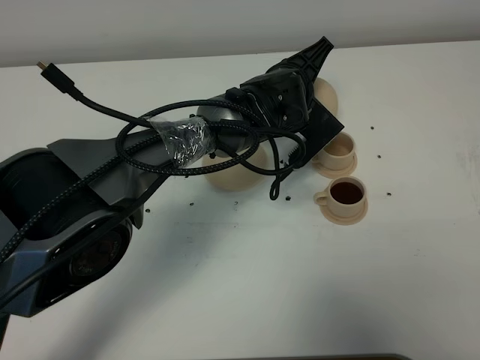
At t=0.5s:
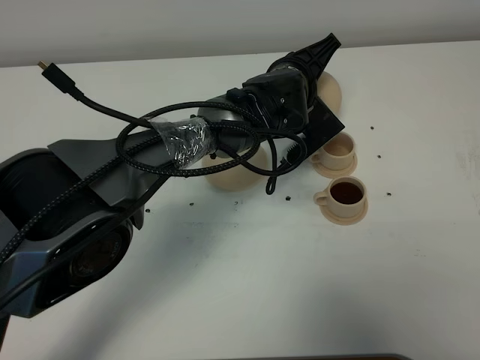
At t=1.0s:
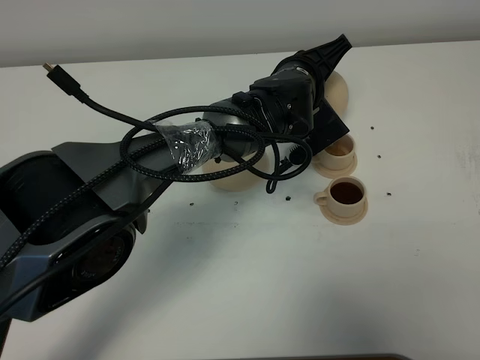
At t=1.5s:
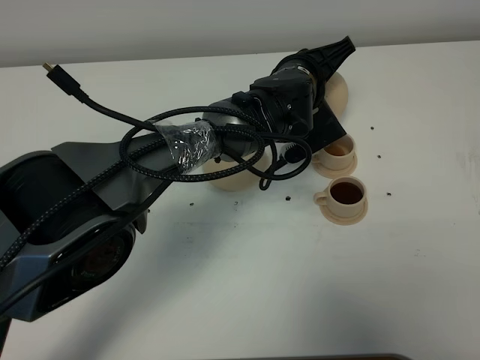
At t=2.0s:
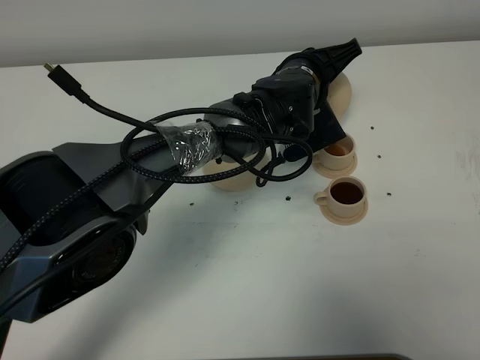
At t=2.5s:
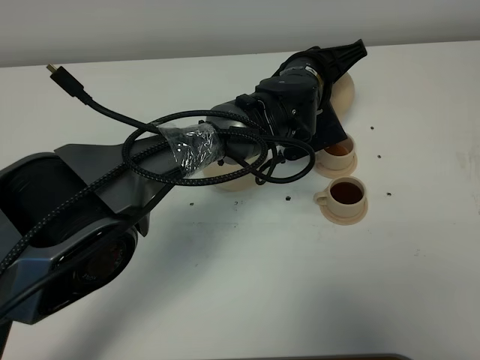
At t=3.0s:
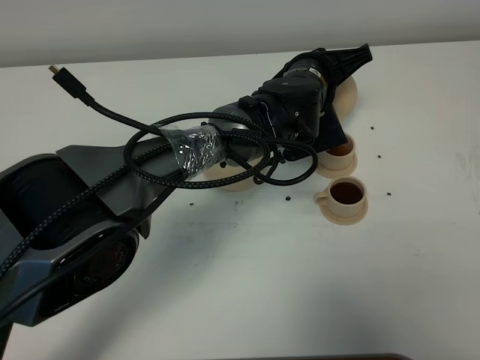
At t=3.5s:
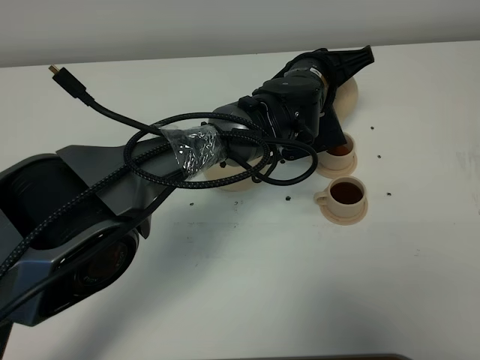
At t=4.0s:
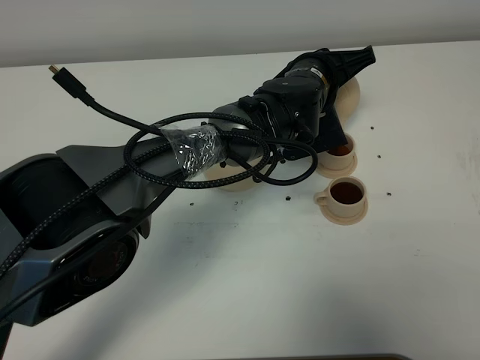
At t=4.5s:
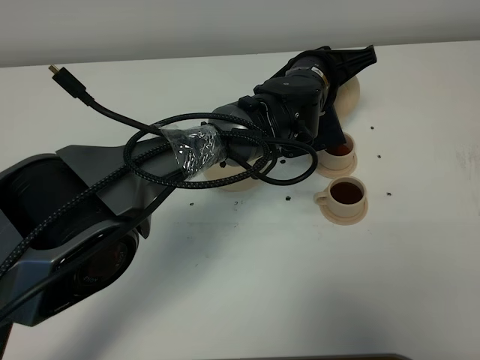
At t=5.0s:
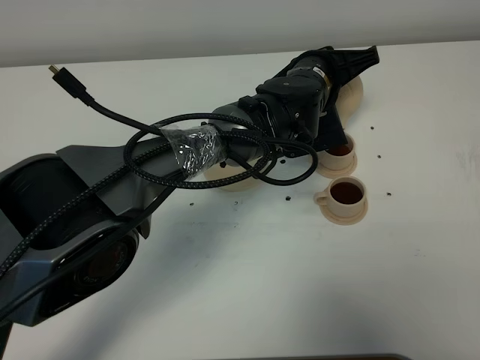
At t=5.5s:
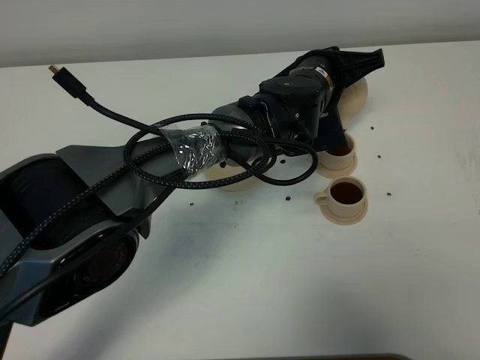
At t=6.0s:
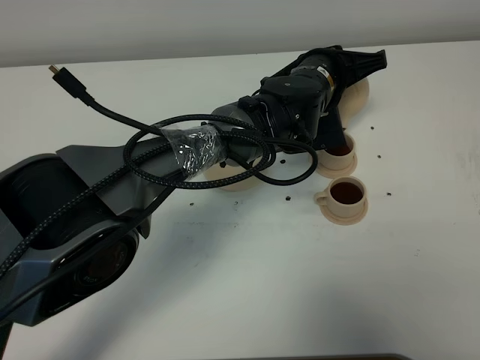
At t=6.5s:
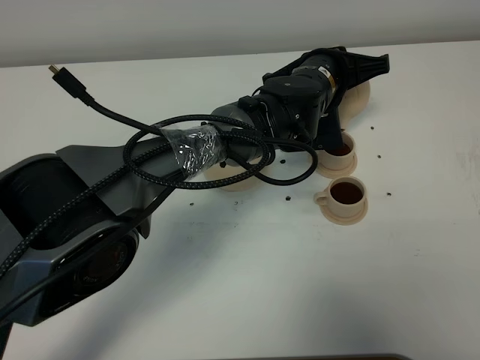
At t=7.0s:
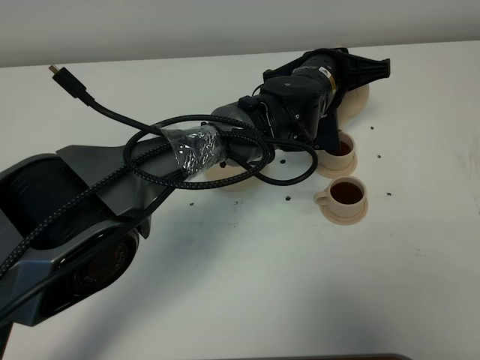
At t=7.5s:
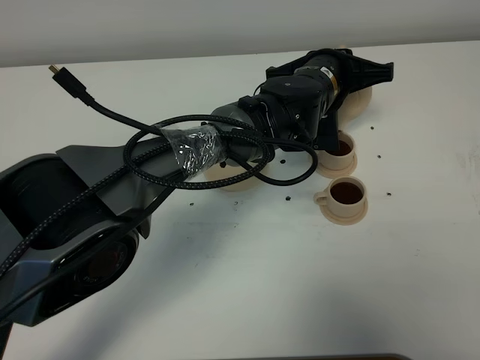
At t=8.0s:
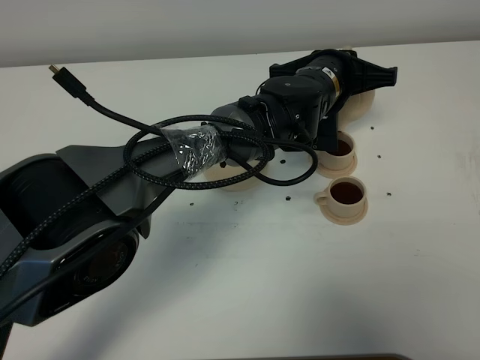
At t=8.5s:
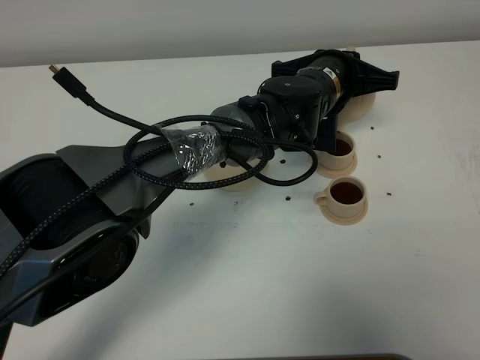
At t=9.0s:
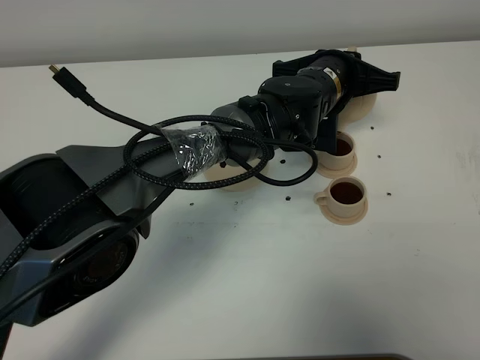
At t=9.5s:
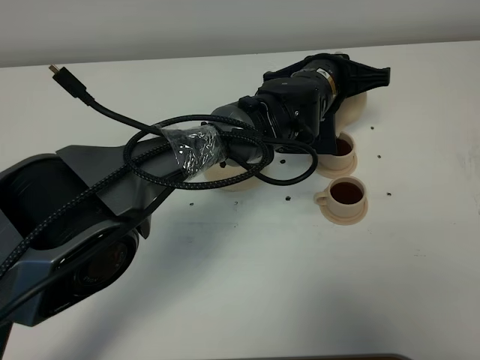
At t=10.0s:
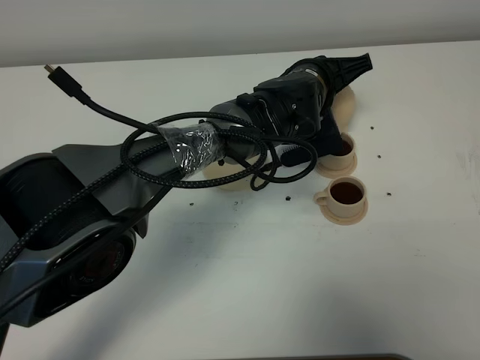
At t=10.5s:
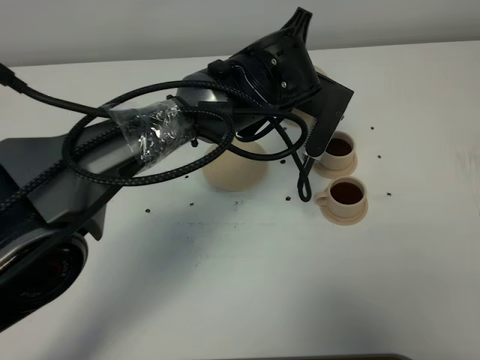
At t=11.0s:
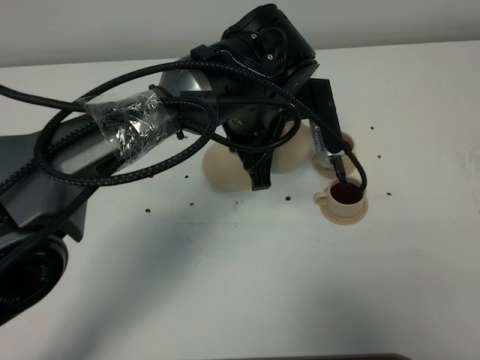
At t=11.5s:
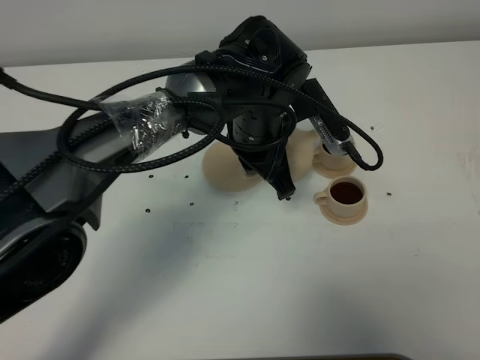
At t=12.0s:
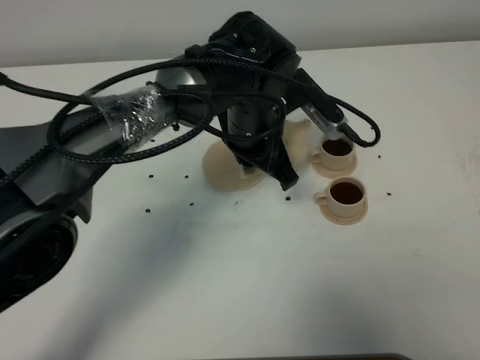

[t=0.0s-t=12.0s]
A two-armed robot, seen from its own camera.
Task of the whole recording: grasp the brown teapot and pour the tea into the two brown teacups one by one, put the brown teapot back in its original place.
Step, t=0.0s to t=9.0s: Pour tea into the teacup with the left gripper.
t=0.0s to t=2.0s: The grippers stay close to where they were, moving slightly.
t=2.0s to t=6.0s: There are only small adjustments of the grippers.
t=6.0s to t=8.0s: The grippers make only small movements.
t=10.0s to t=12.0s: The left gripper heads to the left, covering some 5 cm.

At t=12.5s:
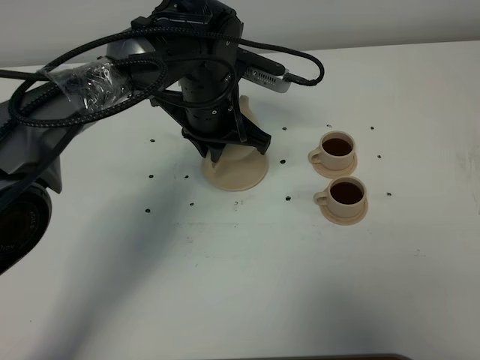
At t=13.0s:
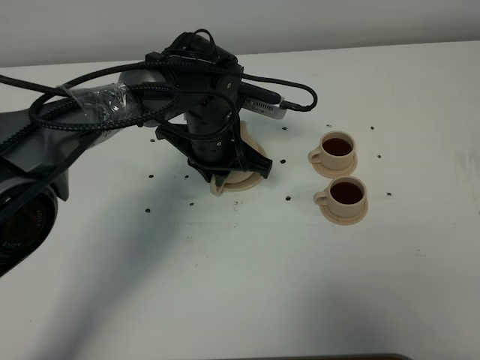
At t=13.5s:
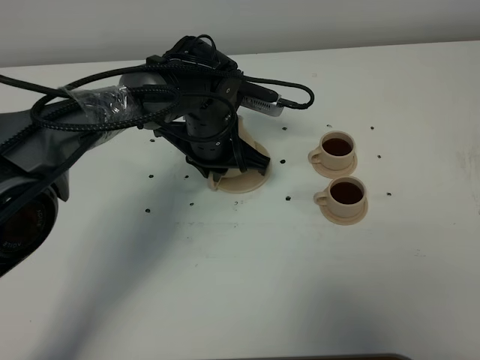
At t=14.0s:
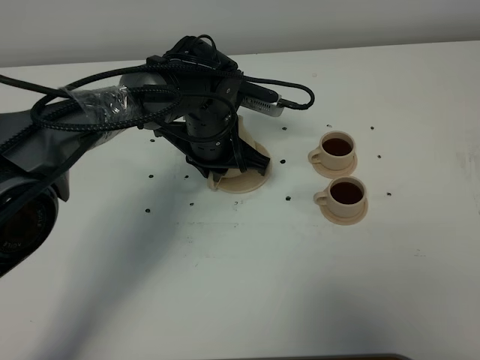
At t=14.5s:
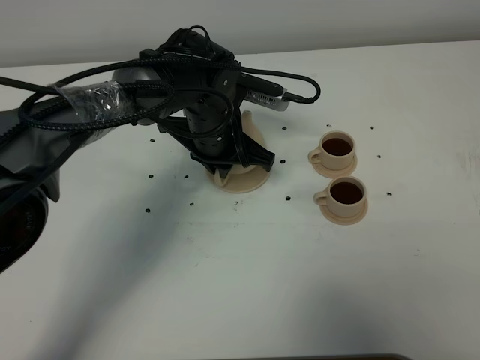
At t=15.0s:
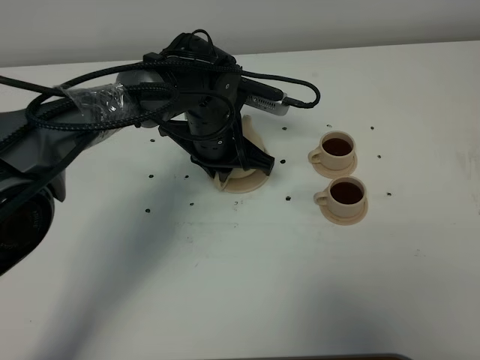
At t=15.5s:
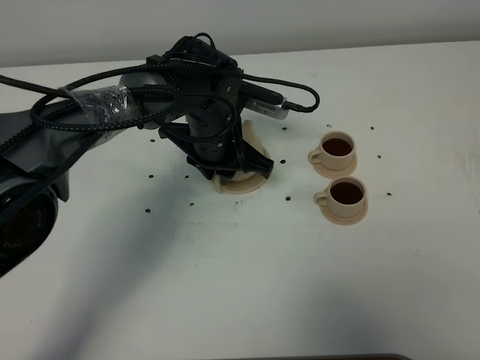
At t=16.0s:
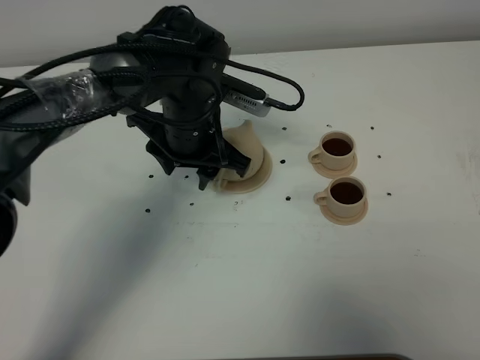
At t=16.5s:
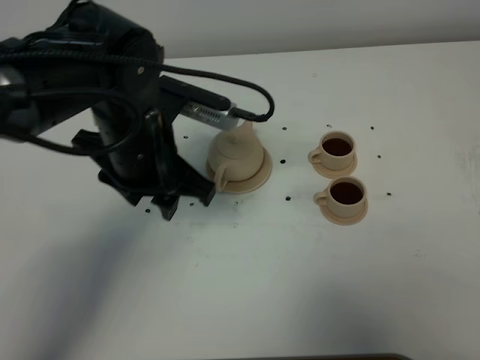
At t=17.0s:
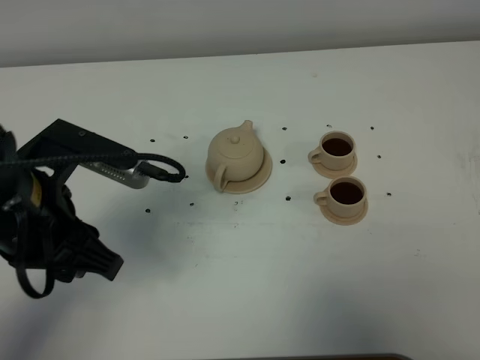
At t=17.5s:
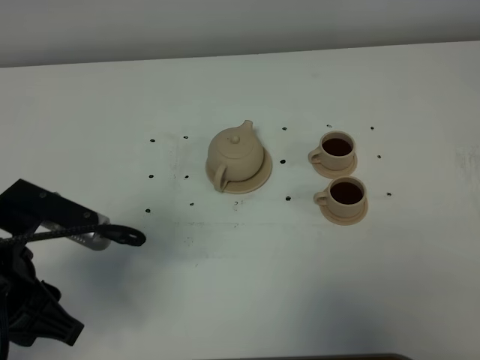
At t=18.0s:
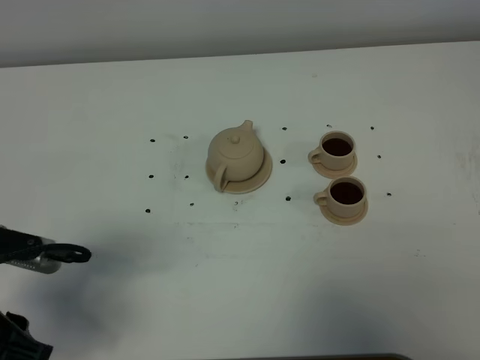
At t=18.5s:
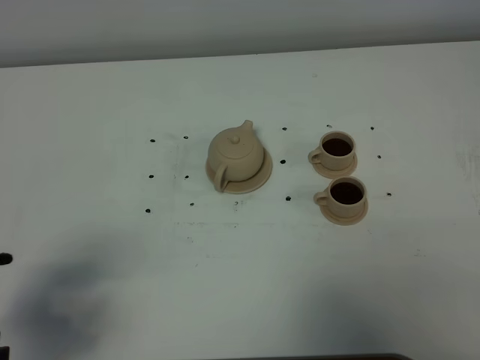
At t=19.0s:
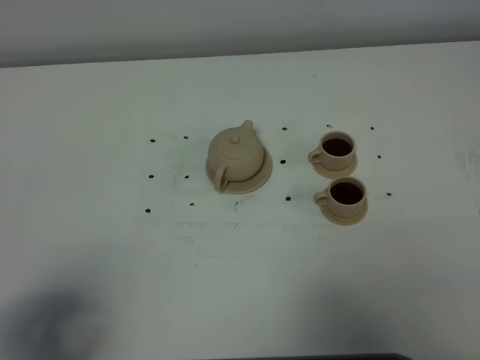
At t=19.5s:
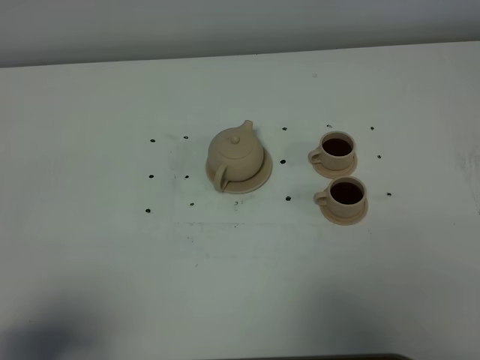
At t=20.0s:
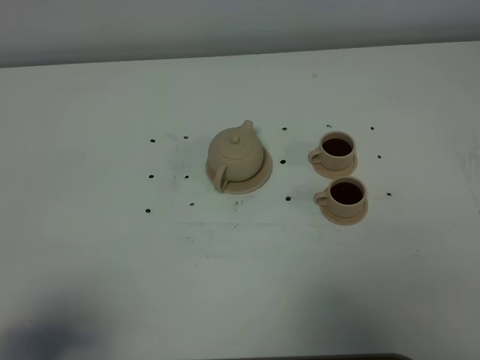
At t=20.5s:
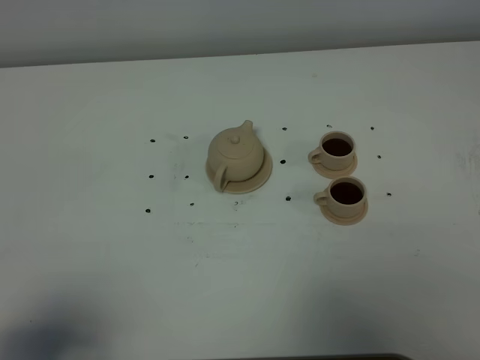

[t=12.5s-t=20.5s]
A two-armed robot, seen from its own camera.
Task of the whole recording: grasp the brown teapot and pour the tea into the two brown teacups one by one, put the brown teapot back in its original place.
t=12.5s to t=14.5s: The grippers move only a little.
t=14.5s to t=16.5s: The left gripper heads backward, upward and to the left, covering roughly 15 cm, and opens.
t=16.5s to t=18.5s: The left gripper goes roughly 25 cm backward and to the left.
t=18.5s to t=20.5s: The left gripper heads backward, covering approximately 10 cm.

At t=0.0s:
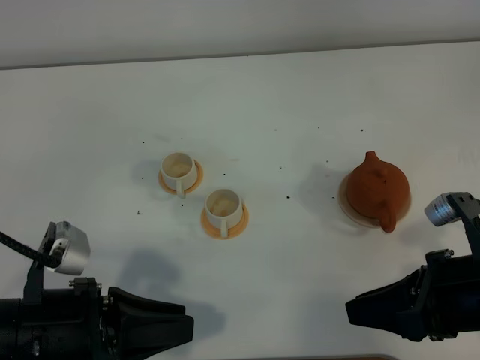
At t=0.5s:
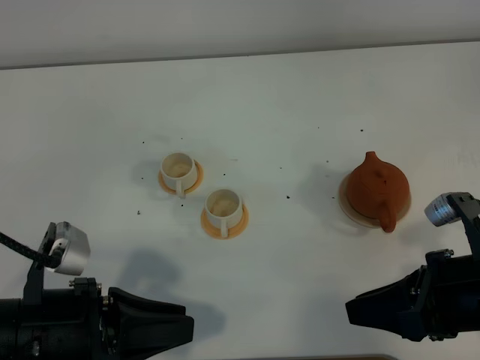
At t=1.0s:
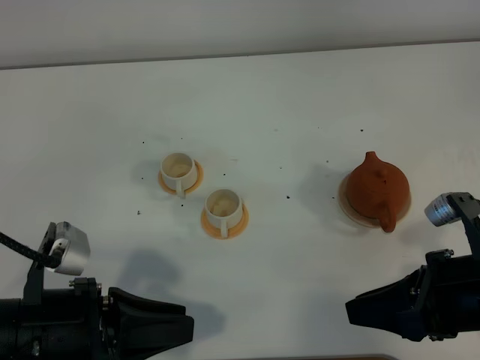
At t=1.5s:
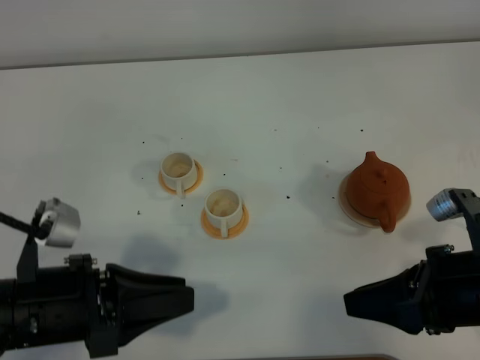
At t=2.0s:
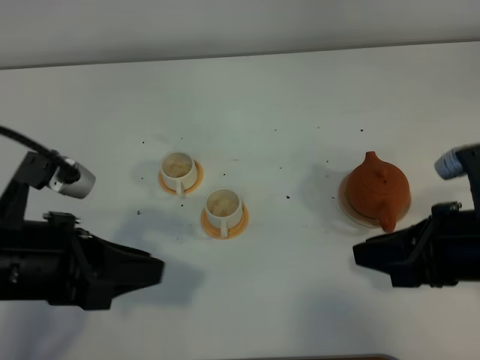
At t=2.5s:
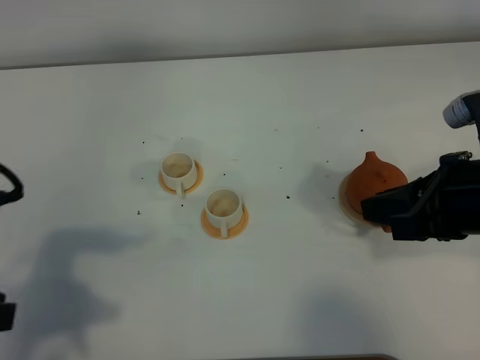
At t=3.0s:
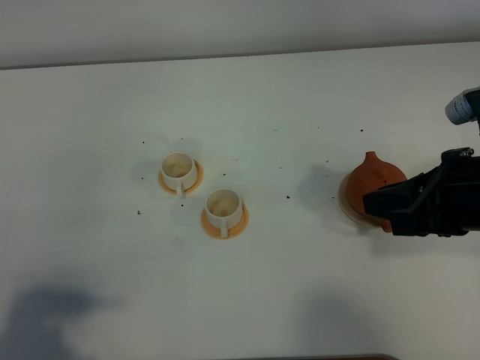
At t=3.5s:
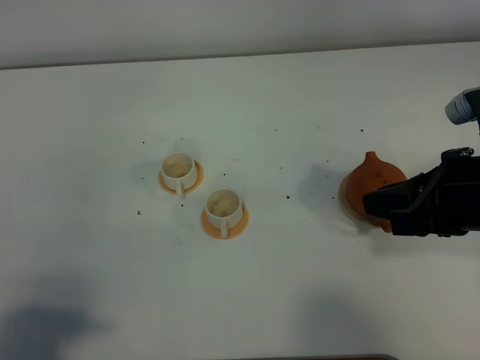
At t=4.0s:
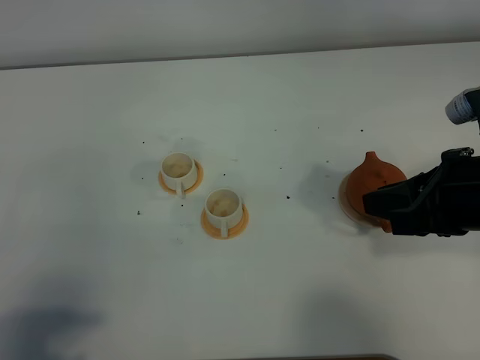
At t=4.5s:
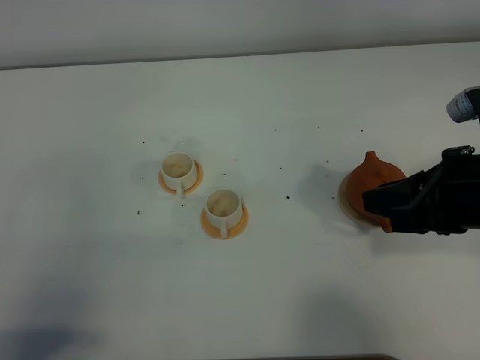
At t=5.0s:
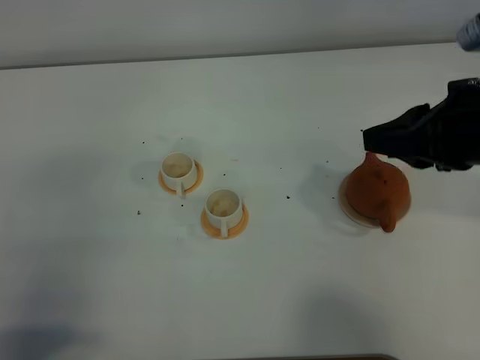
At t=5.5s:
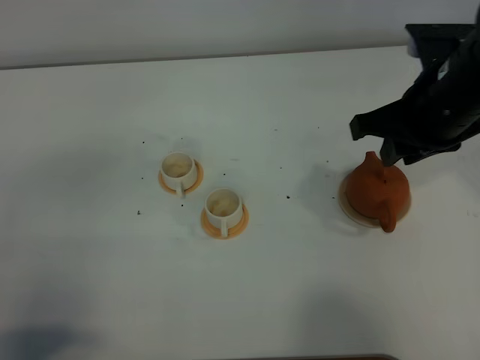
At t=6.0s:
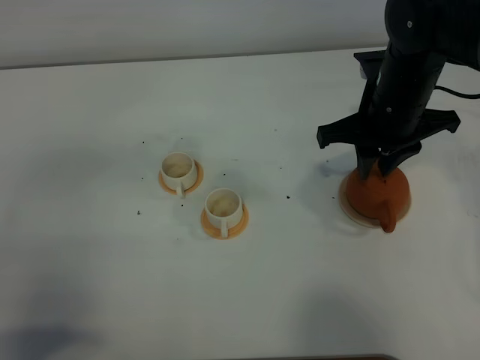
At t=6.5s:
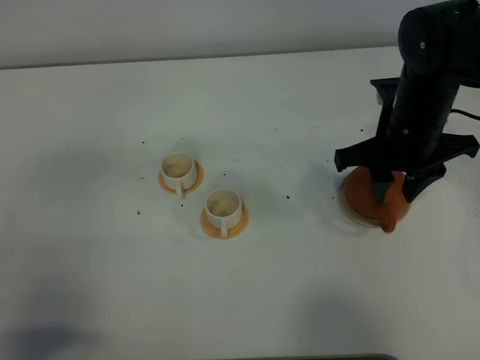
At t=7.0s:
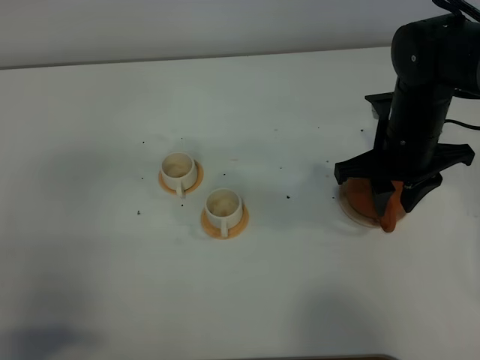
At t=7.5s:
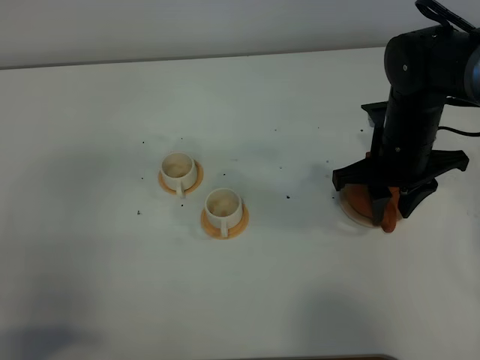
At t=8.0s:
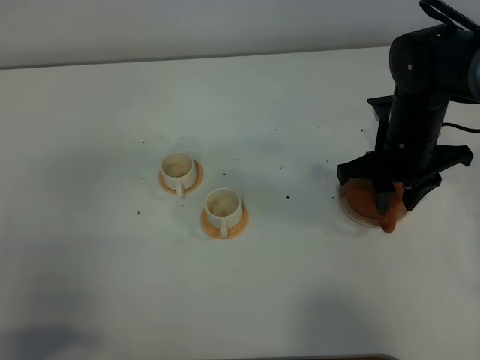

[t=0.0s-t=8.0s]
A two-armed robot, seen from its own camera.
Task of the whole recording: grasp the brown teapot and pour the tea into the two white teacups one by one, put the brown teapot back in its original place.
t=0.0s to t=2.0s: The left gripper goes some 5 cm upward.
t=2.0s to t=4.0s: The left gripper travels backward and to the left by roughly 15 cm.
t=4.0s to t=6.0s: The right gripper goes roughly 15 cm forward and to the left.
t=6.0s to t=8.0s: The right gripper goes about 5 cm downward.
